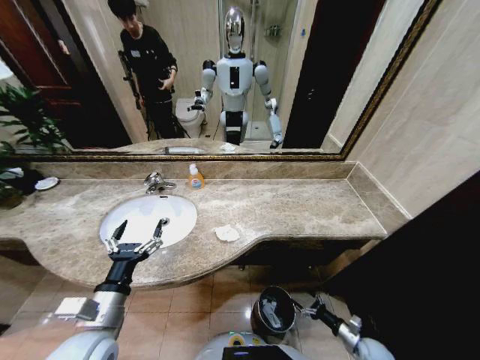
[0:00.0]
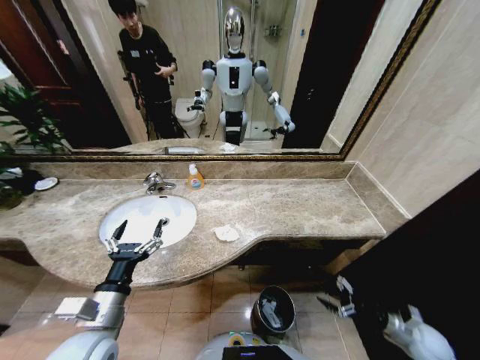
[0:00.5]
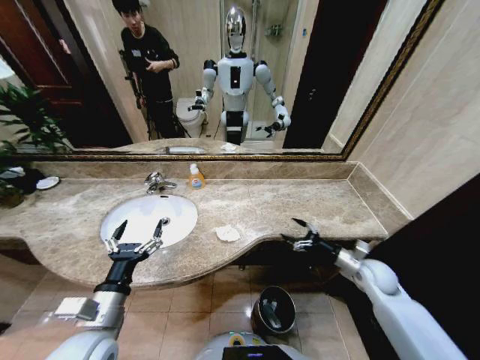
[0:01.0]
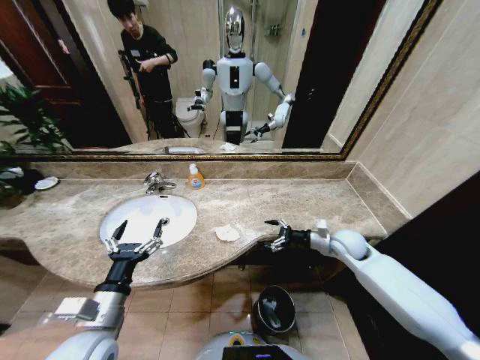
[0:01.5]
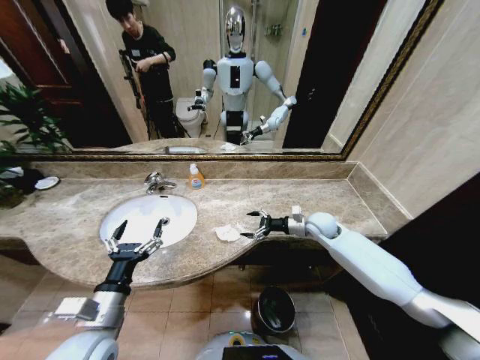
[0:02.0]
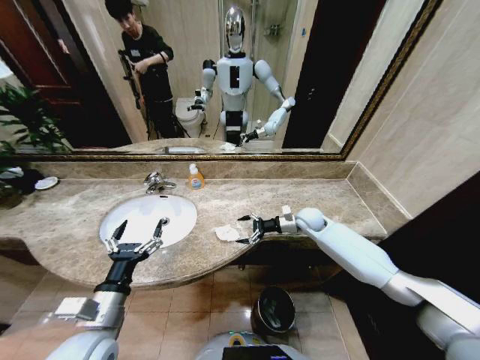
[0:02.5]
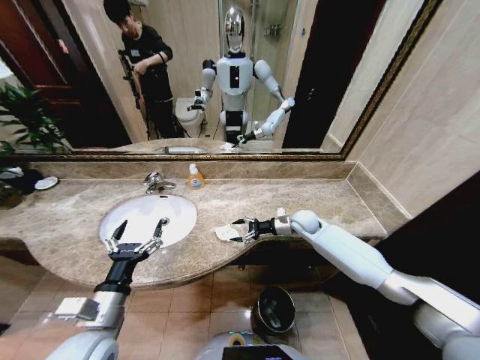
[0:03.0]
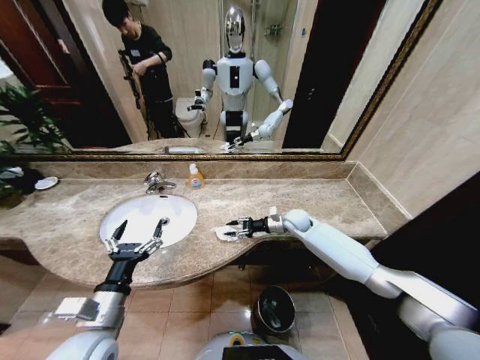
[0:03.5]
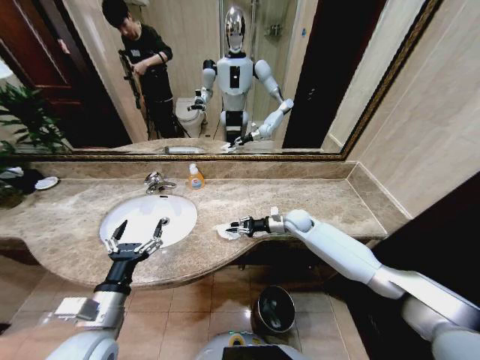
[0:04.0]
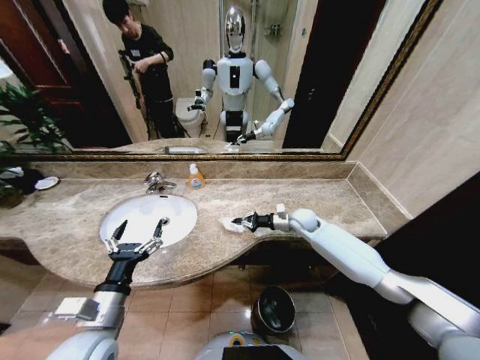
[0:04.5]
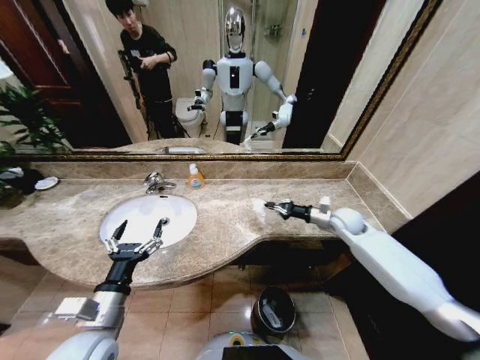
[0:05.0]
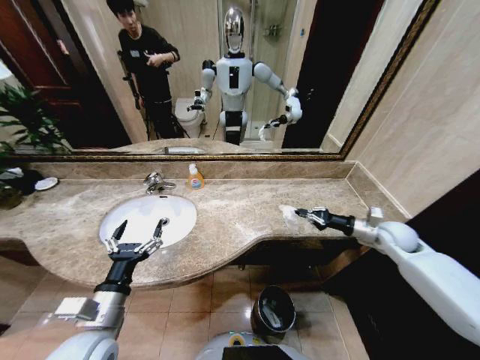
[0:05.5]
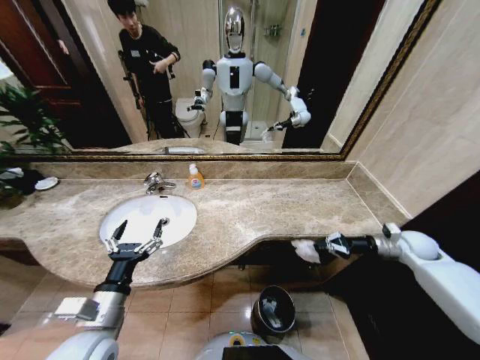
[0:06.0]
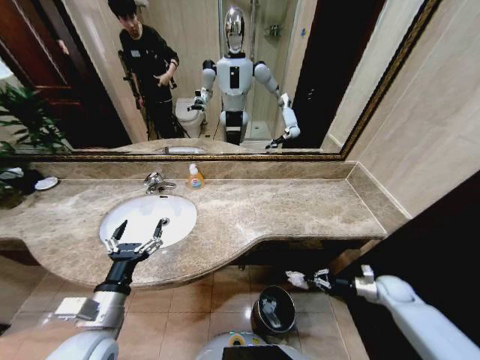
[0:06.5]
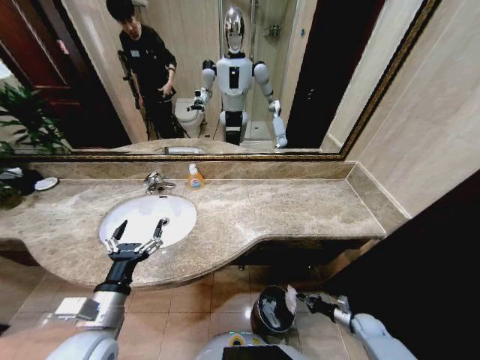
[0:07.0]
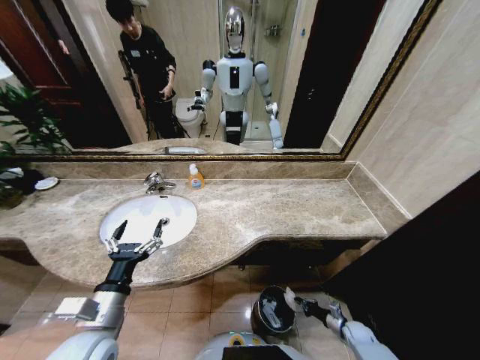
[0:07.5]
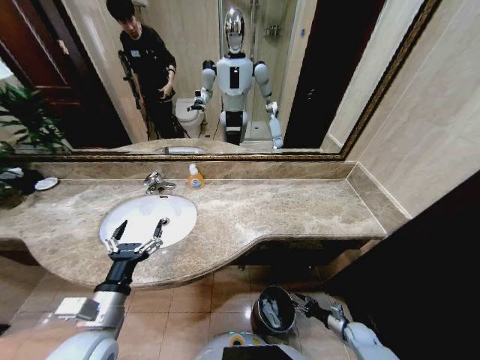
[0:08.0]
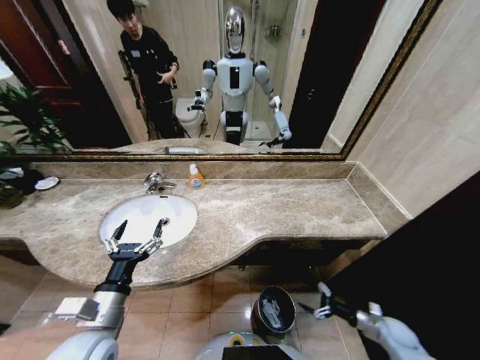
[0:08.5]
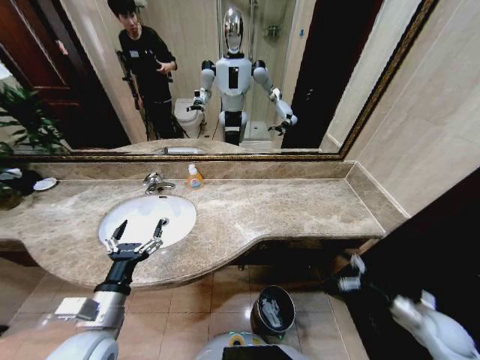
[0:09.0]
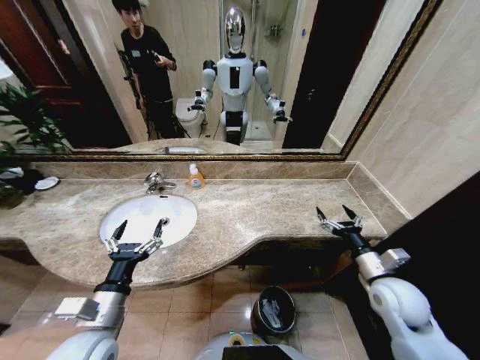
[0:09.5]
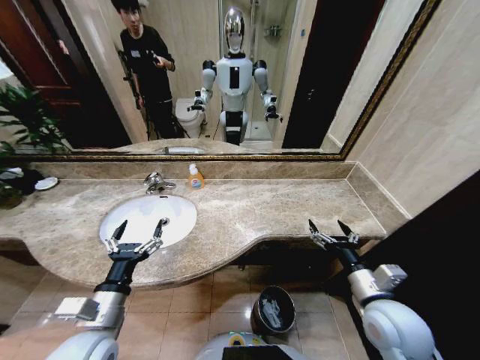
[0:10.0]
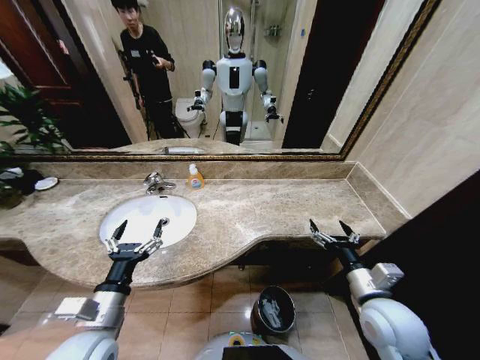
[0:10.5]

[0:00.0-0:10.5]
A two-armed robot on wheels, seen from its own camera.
Task of the whole recording: Pick up the trash from the sink and place it in the trash bin.
0:00.0 to 0:02.0: The right gripper is displaced upward, forward and to the left by roughly 50 cm.
0:02.0 to 0:04.0: The right gripper is displaced to the left by about 5 cm, and closes up.
0:04.0 to 0:06.5: The right gripper goes roughly 40 cm to the right, backward and downward.
0:06.5 to 0:08.5: The right gripper travels backward and downward by roughly 10 cm, and opens.
0:08.5 to 0:10.5: The right gripper heads upward and to the left, covering roughly 35 cm.

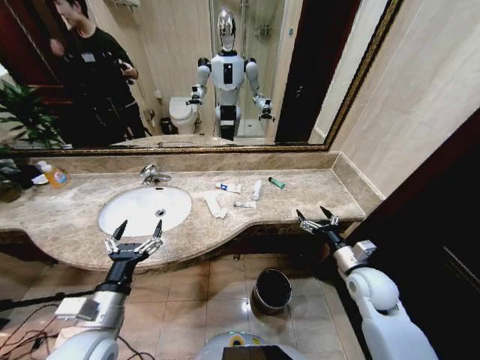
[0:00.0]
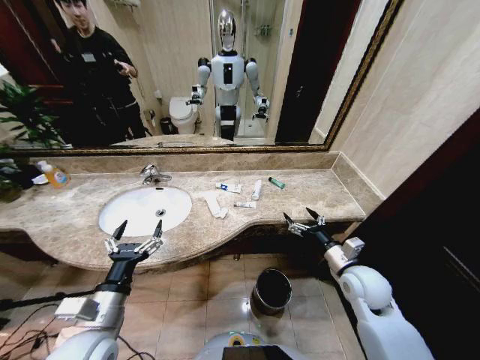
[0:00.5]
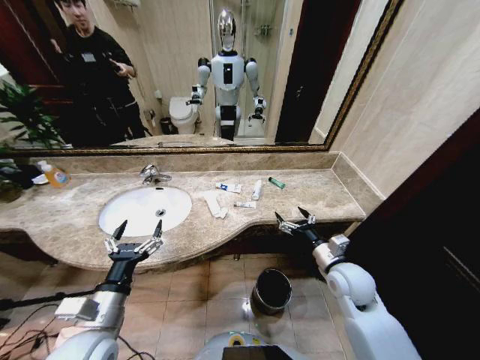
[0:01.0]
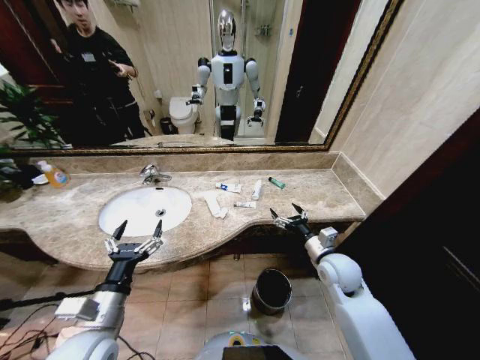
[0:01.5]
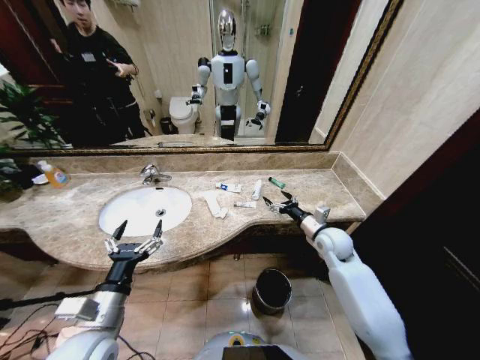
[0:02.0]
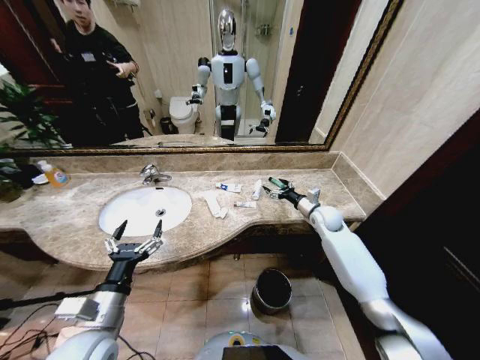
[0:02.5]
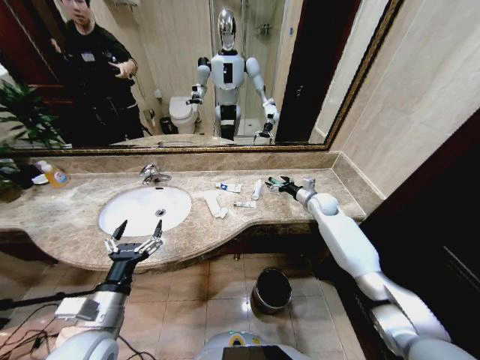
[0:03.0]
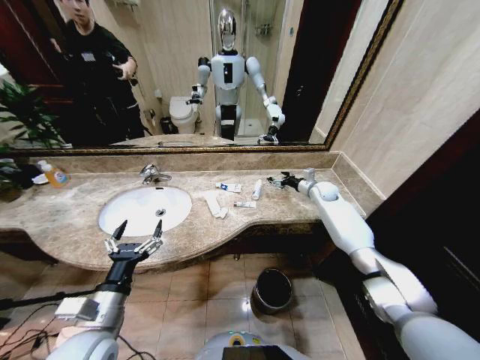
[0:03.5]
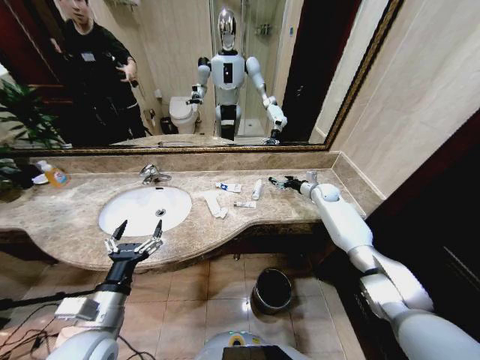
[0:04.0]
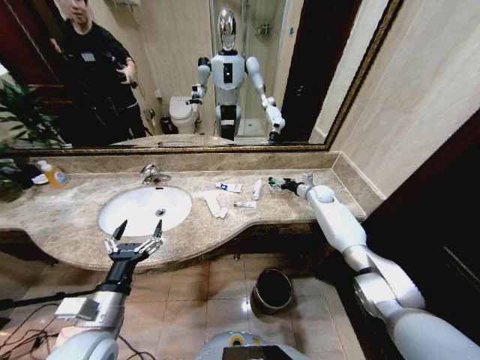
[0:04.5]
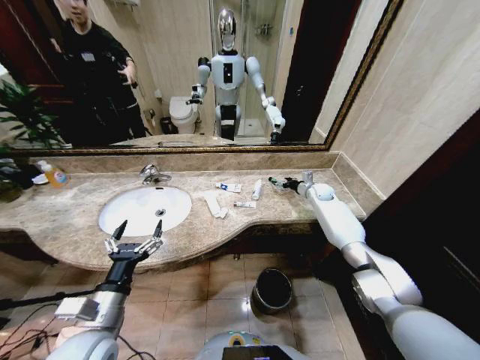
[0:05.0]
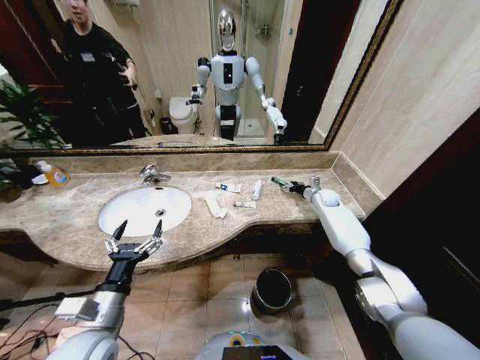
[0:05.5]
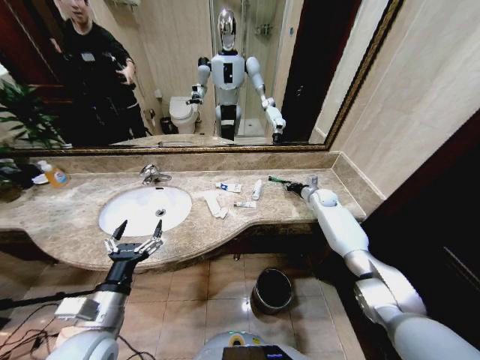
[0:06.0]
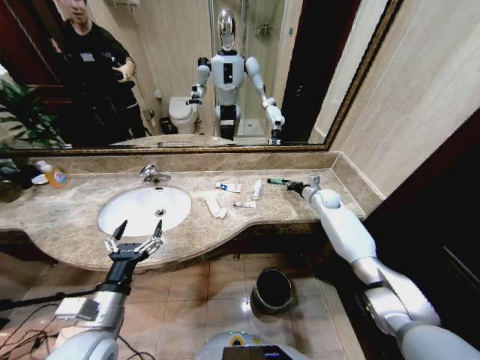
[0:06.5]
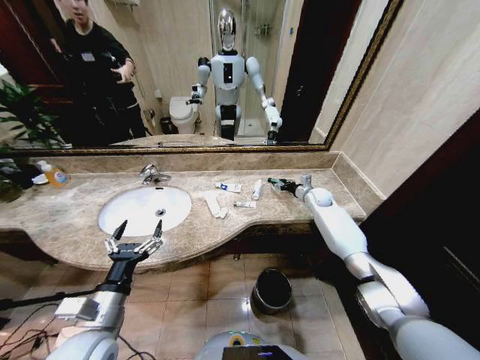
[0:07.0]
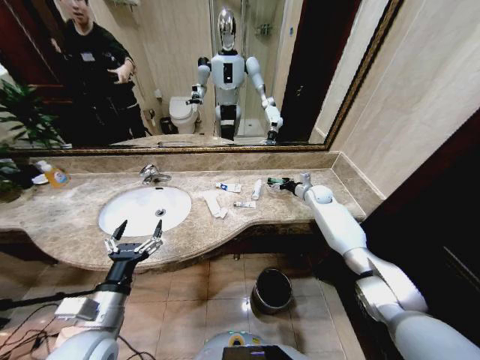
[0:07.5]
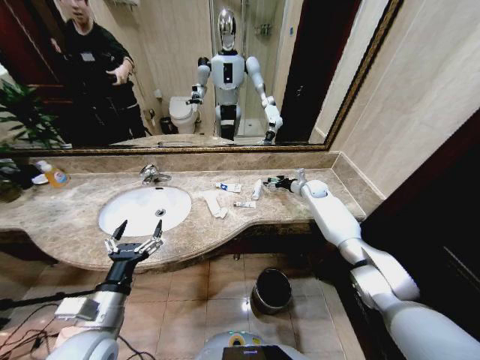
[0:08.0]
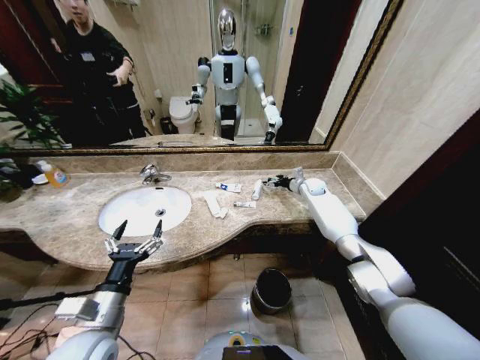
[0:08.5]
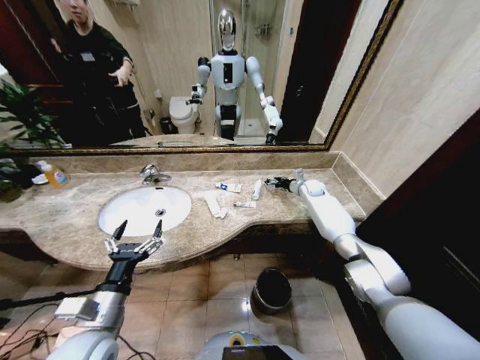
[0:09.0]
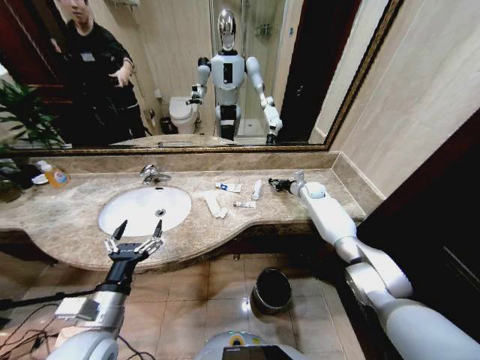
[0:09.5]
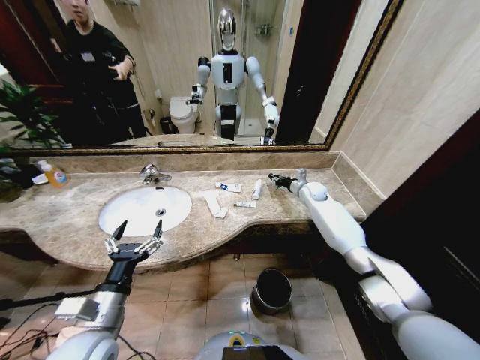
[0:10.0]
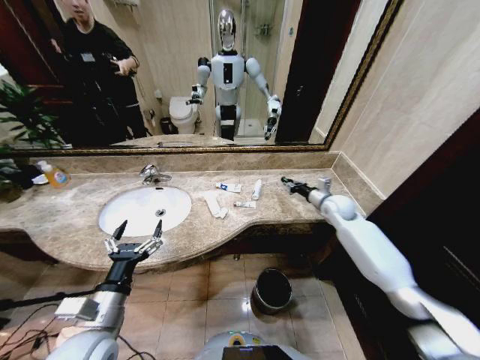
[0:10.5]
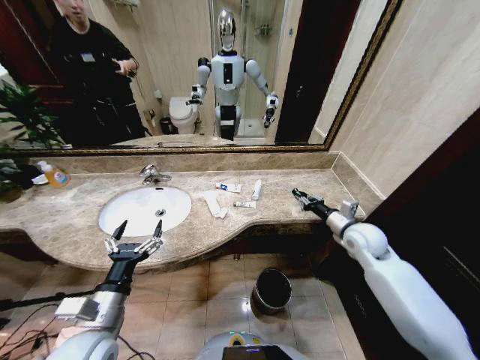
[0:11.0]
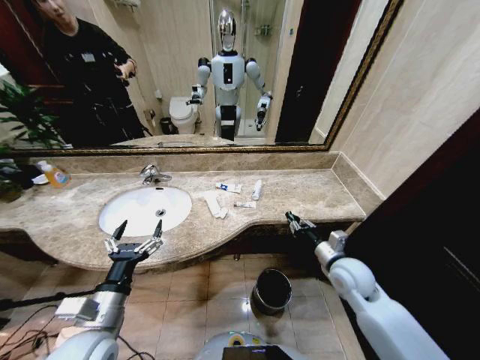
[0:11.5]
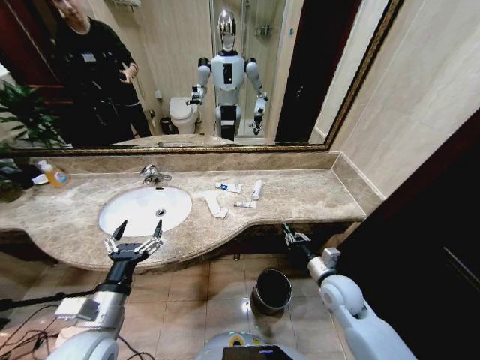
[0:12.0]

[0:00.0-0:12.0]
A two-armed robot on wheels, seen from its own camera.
Task of the whole recording: Pick up the trash from the sink and place it in the trash bin.
0:02.0 to 0:04.0: The right gripper goes about 20 cm forward.
0:04.0 to 0:06.0: The right gripper closes up.
0:06.0 to 0:08.0: The right gripper changes place by some 5 cm, and opens up.
0:08.0 to 0:10.0: The right gripper closes up.
0:10.0 to 0:12.0: The right gripper moves backward, about 35 cm.

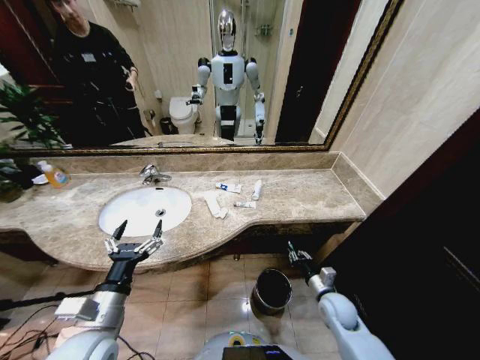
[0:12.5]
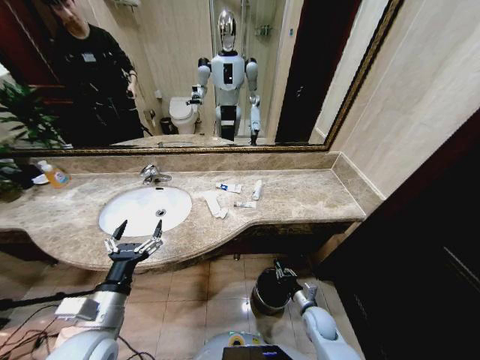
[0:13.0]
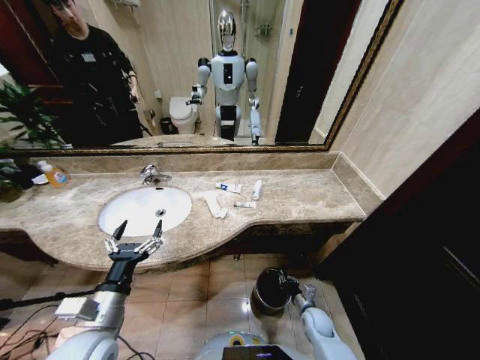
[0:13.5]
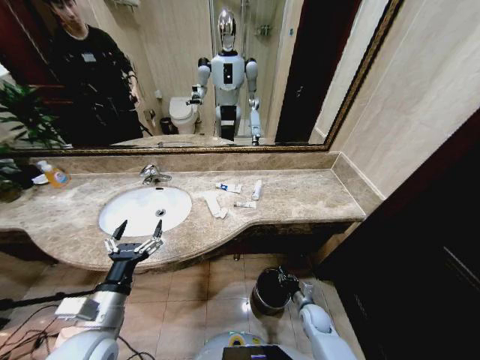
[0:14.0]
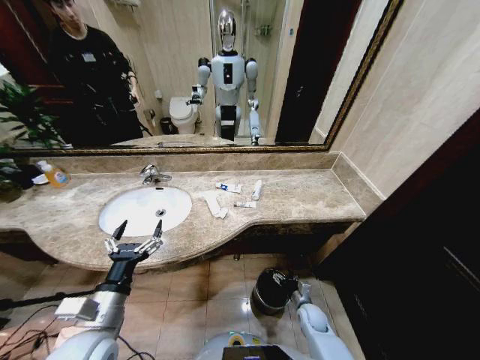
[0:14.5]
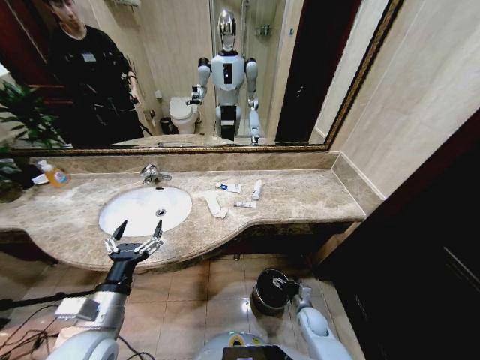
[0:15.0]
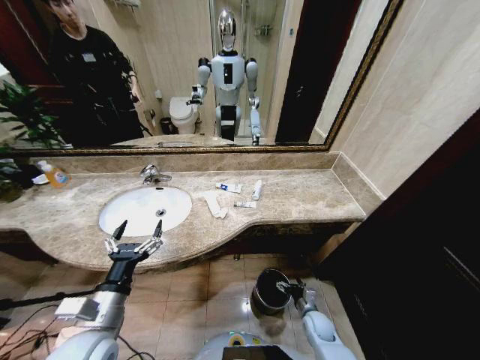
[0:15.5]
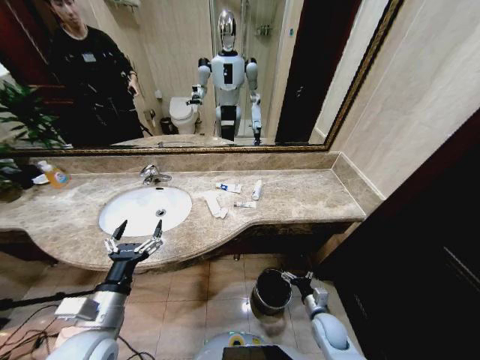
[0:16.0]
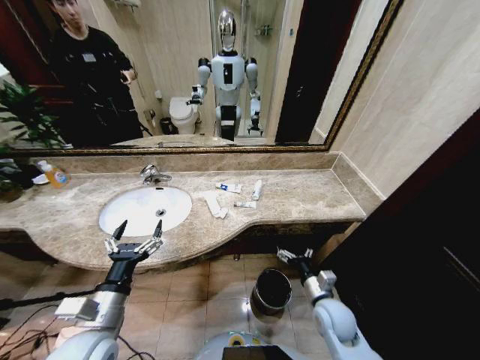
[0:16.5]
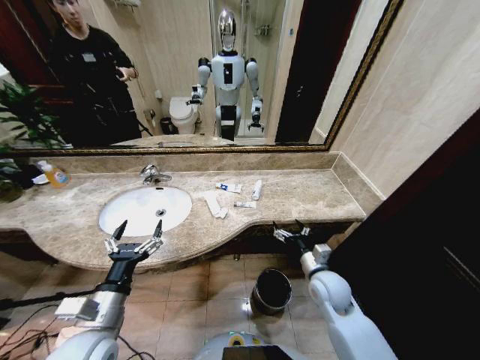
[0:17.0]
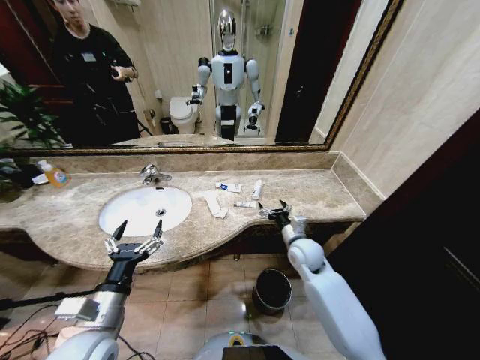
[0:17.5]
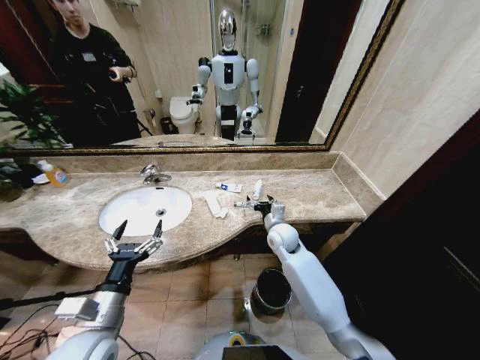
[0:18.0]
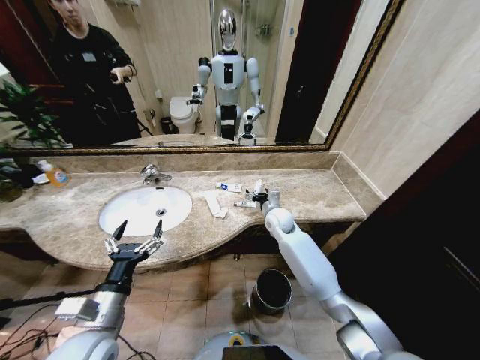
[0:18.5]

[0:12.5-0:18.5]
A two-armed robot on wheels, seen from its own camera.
Task of the whole recording: Pick up the trash from the sink and place it in the trash bin.
0:12.5 to 0:14.5: The right gripper travels downward by roughly 10 cm, and opens its fingers.
0:14.5 to 0:16.5: The right gripper goes approximately 20 cm upward.
0:16.5 to 0:18.5: The right gripper travels forward by roughly 25 cm.
